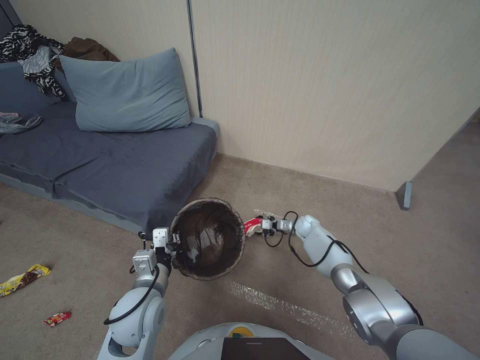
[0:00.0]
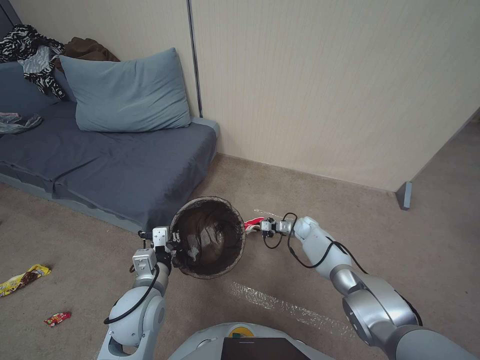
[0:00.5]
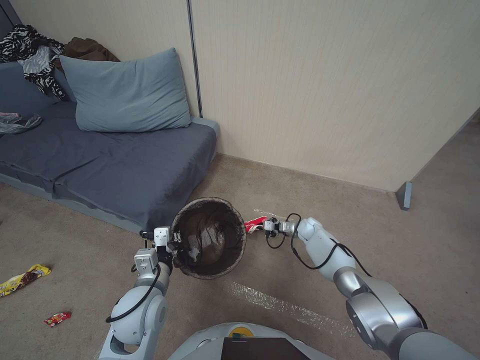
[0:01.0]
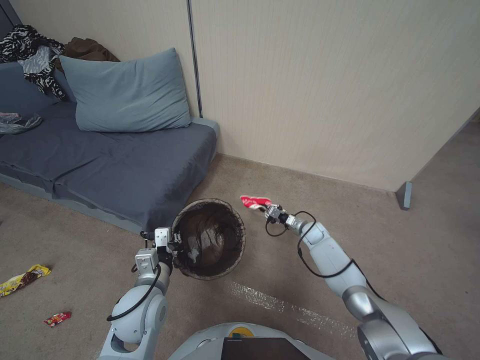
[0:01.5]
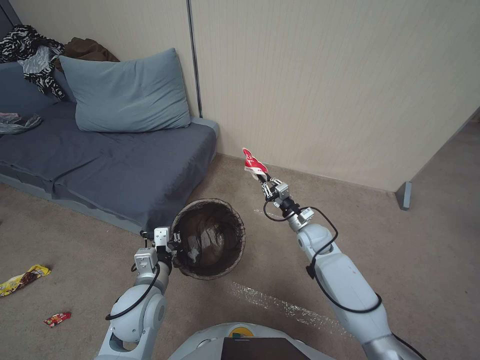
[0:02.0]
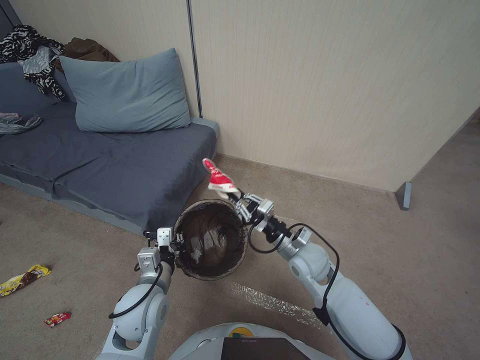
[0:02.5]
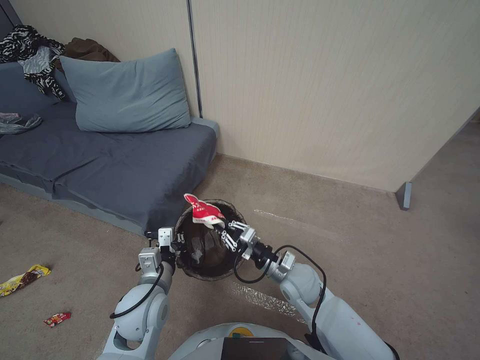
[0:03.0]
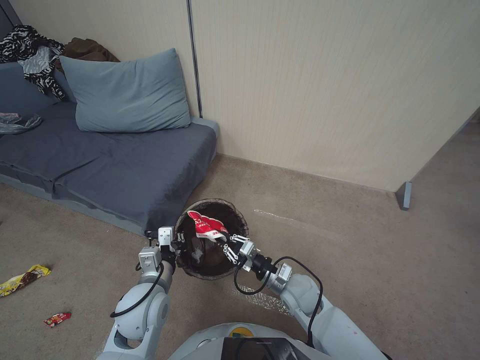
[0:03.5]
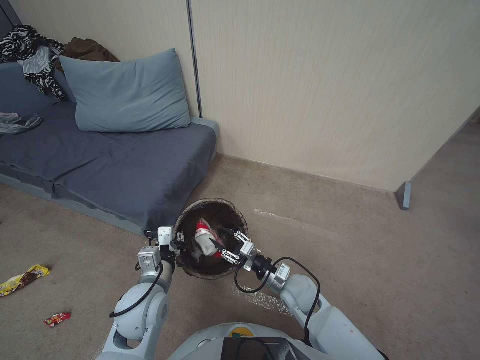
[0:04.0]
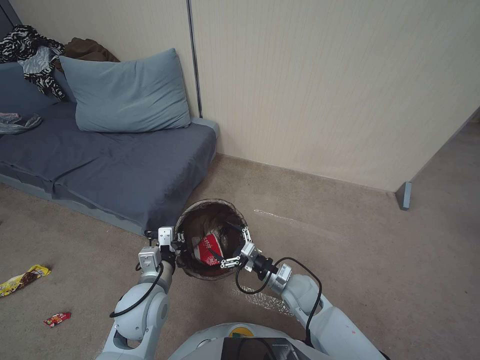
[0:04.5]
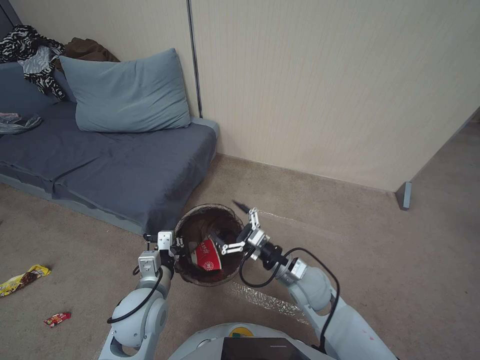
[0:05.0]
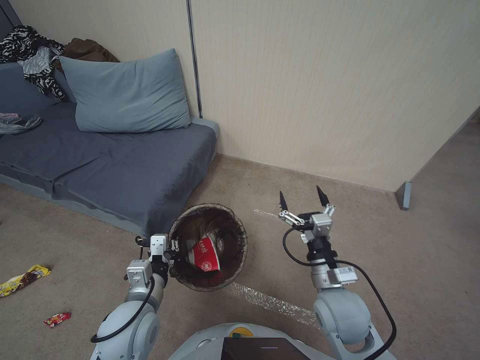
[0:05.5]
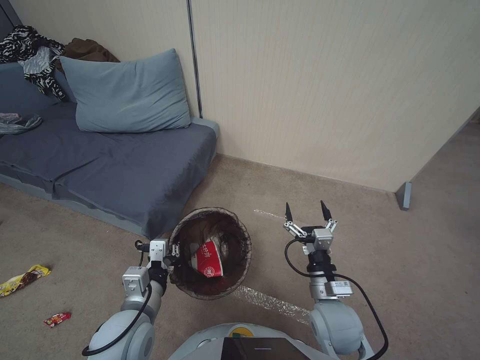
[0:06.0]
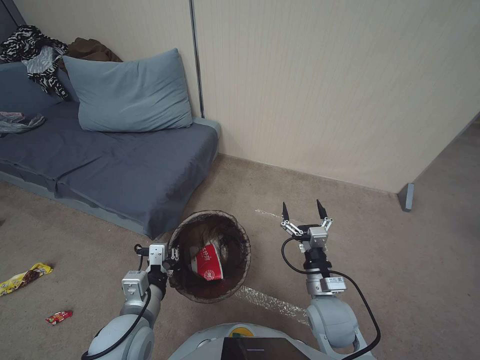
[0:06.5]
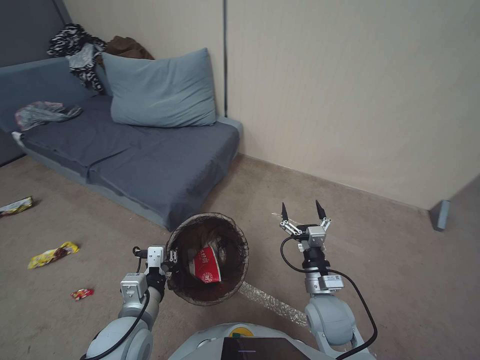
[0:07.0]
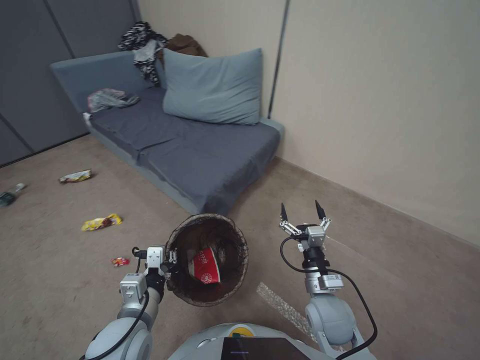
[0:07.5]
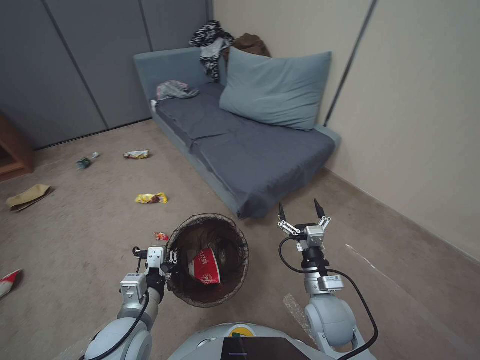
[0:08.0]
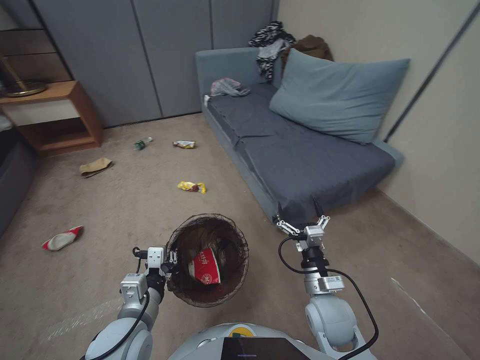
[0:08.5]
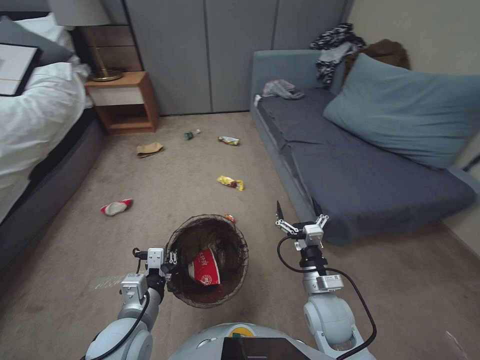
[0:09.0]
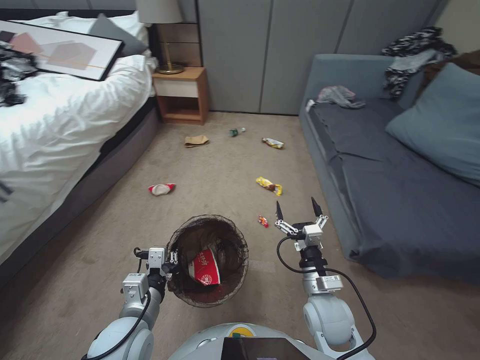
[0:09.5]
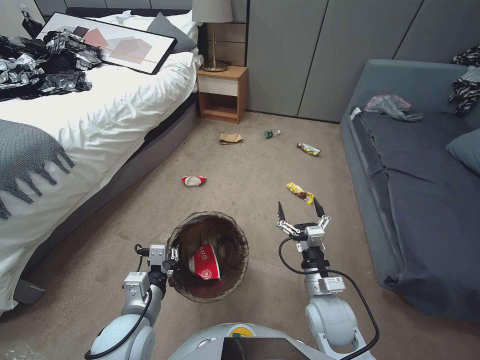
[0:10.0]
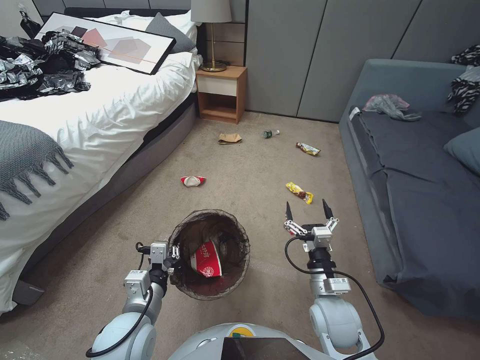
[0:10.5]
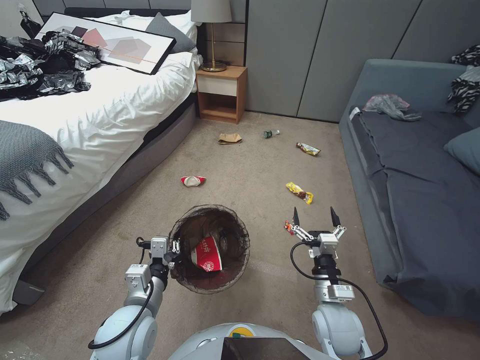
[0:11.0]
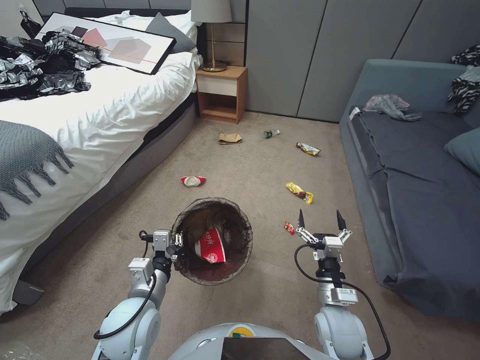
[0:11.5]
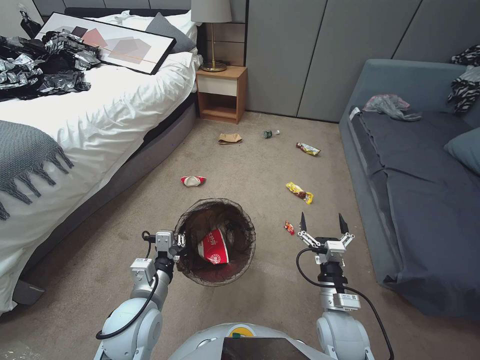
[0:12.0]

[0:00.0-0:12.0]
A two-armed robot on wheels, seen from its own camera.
Task of the whole recording: Pick up the trash bin, then pick up the garbage from the floor and place it into the trash bin.
0:00.0 to 0:02.0: The right gripper goes some 15 cm upward and backward, and closes its fingers.
0:02.0 to 0:04.0: The right gripper moves backward and to the left, roughly 20 cm.
0:04.0 to 0:06.0: The left gripper changes place by some 5 cm. The right gripper travels upward and backward by some 10 cm, and opens.
0:10.0 to 0:12.0: The right gripper changes place by some 5 cm.

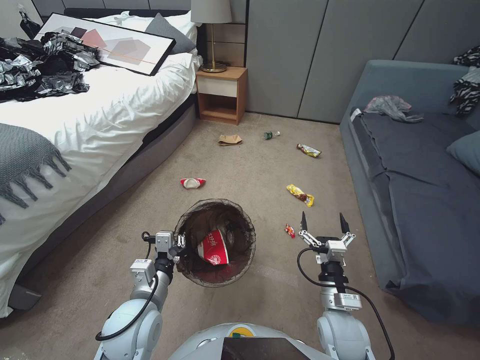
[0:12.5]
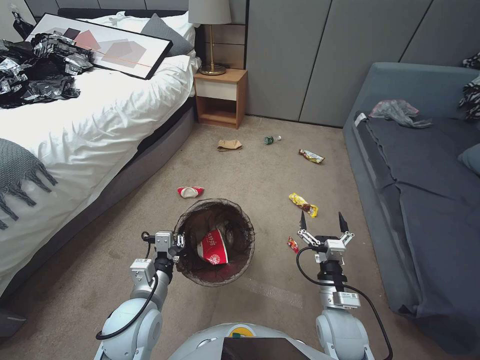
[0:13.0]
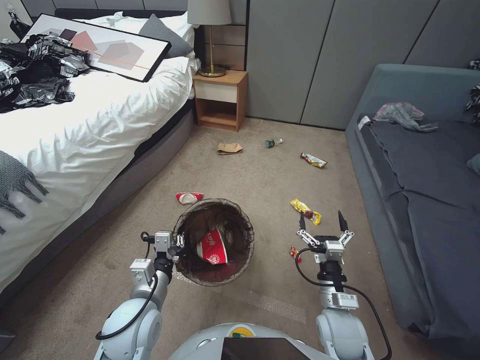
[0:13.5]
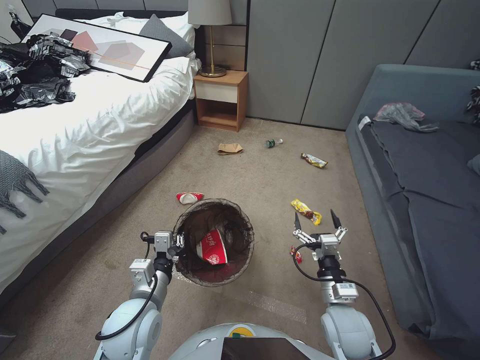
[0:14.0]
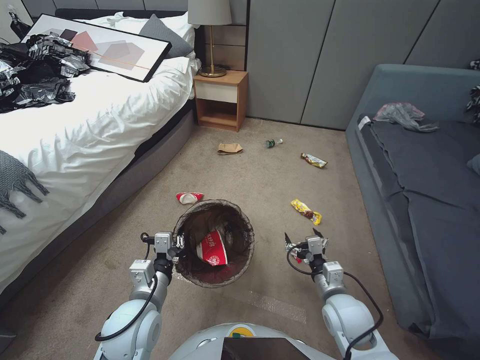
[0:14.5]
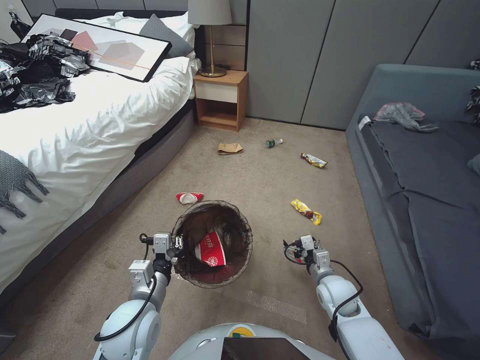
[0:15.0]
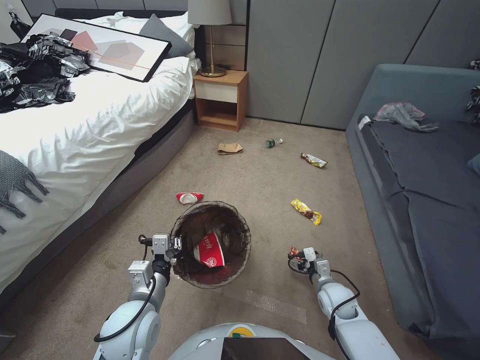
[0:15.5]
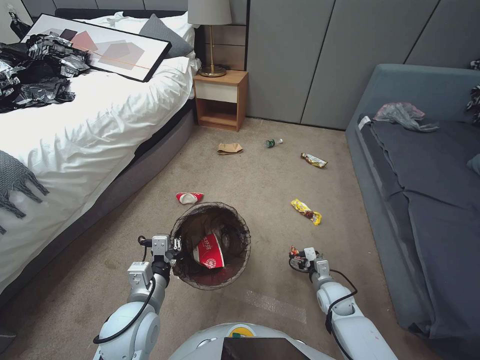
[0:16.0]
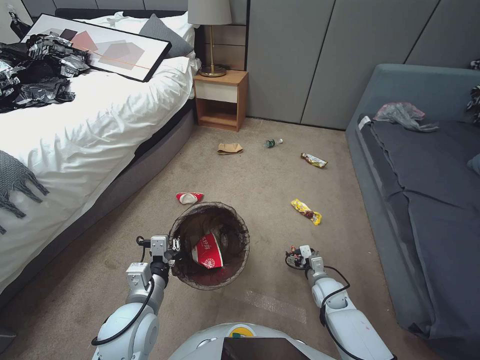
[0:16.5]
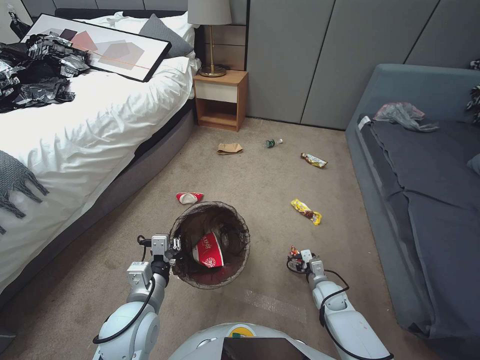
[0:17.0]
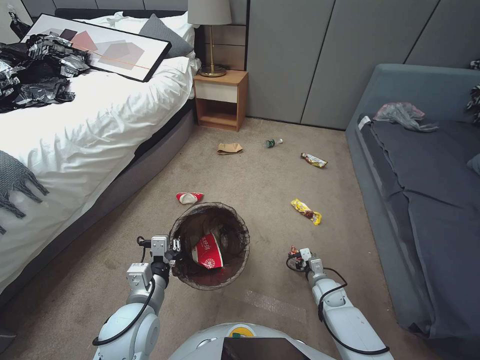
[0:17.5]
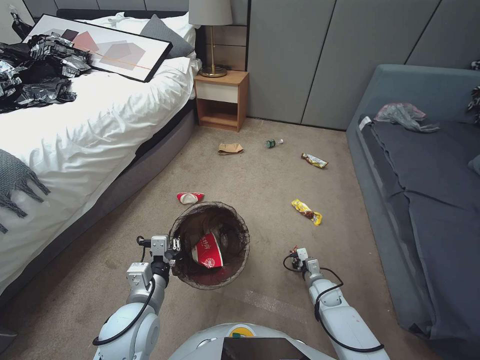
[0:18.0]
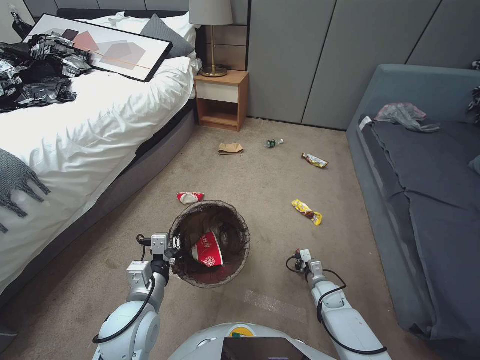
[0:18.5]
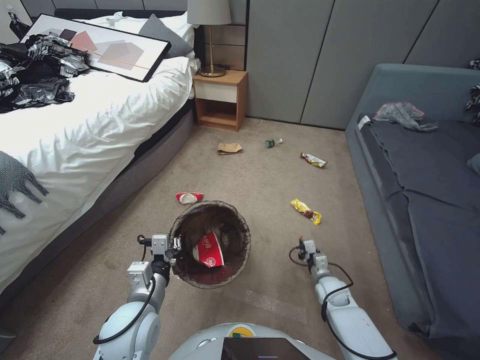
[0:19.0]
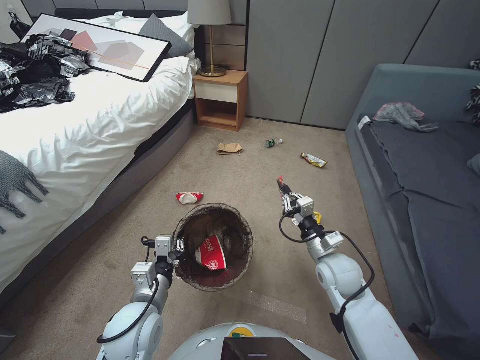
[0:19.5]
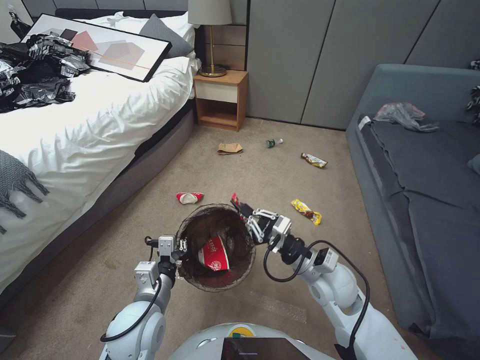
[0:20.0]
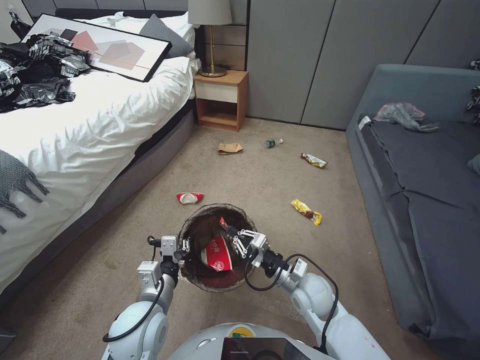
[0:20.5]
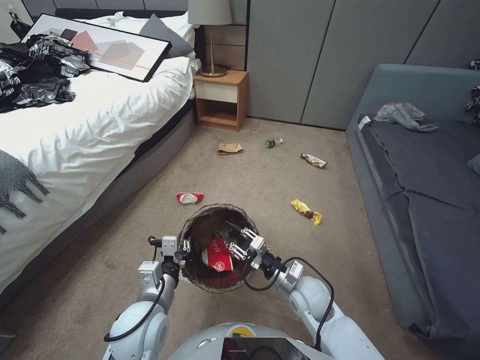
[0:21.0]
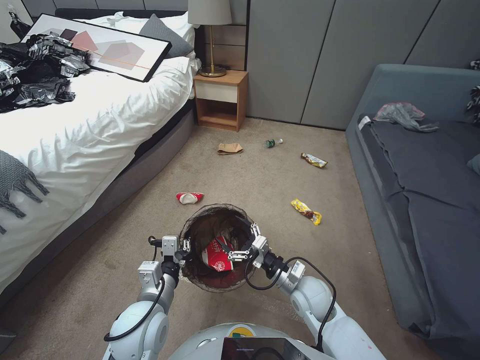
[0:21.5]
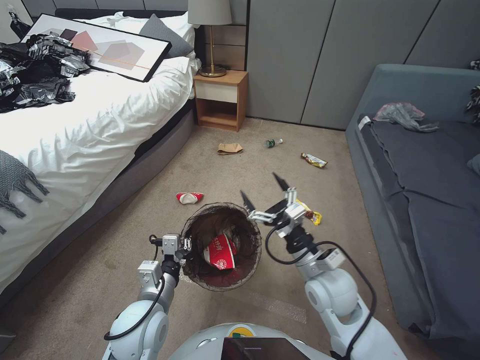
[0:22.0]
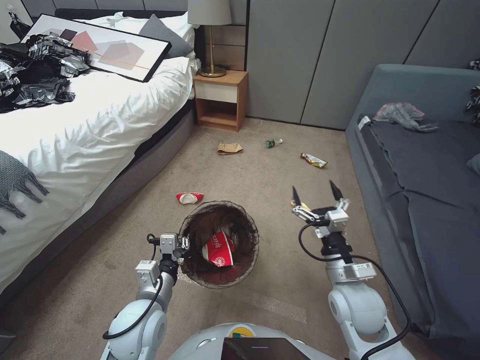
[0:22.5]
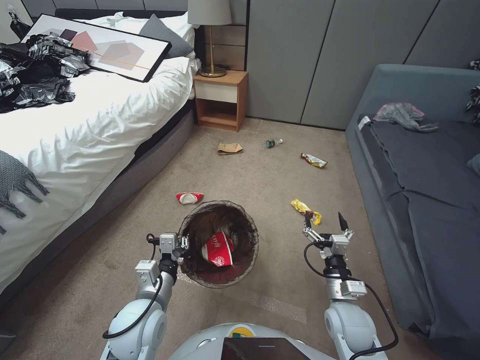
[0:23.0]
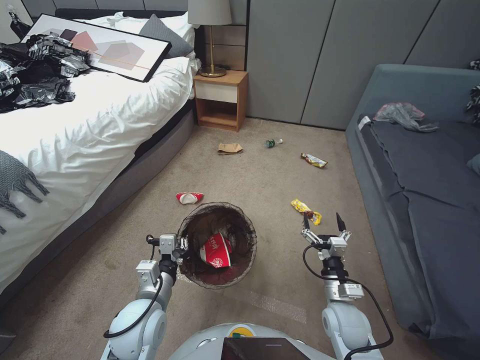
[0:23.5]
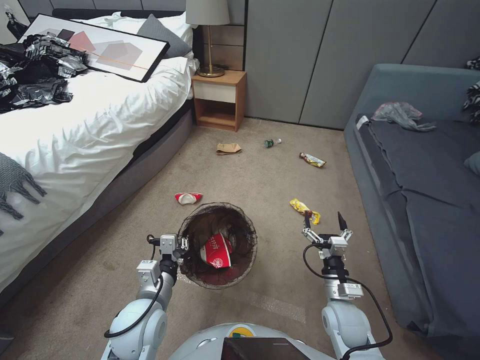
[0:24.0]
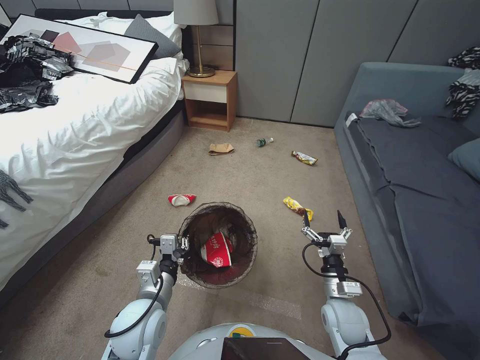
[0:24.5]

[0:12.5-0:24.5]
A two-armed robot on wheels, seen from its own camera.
Task of the whole recording: Pick up the trash bin, then pick up the garbage from the floor and place it into the trash bin.
0:14.5 to 0:16.5: The right gripper travels downward and forward by approximately 15 cm.
0:16.5 to 0:18.5: The right gripper heads downward, covering approximately 5 cm, and closes.
0:18.5 to 0:20.5: The right gripper moves upward and to the left, approximately 25 cm.
0:20.5 to 0:22.5: The right gripper moves upward and to the right, about 10 cm, and opens its fingers.
0:22.5 to 0:24.5: The right gripper goes some 10 cm downward.

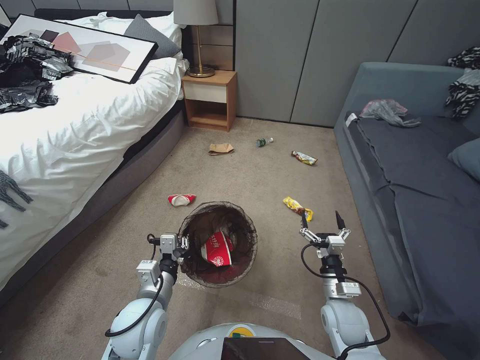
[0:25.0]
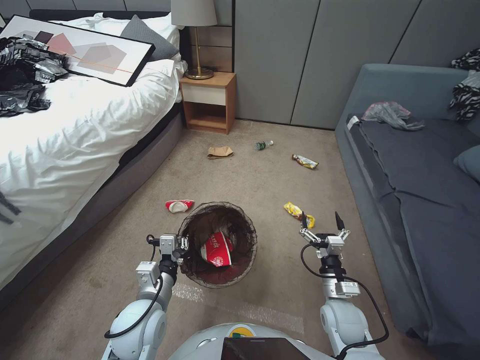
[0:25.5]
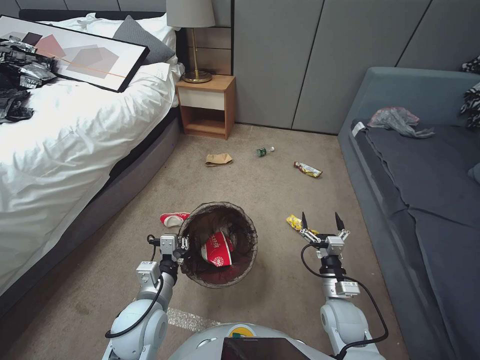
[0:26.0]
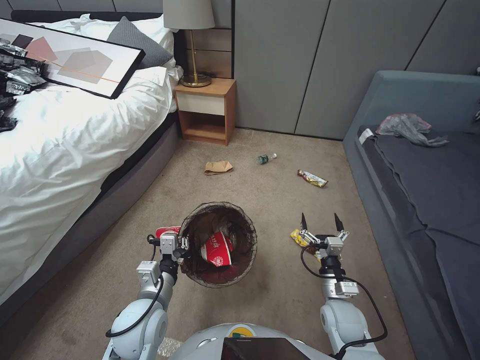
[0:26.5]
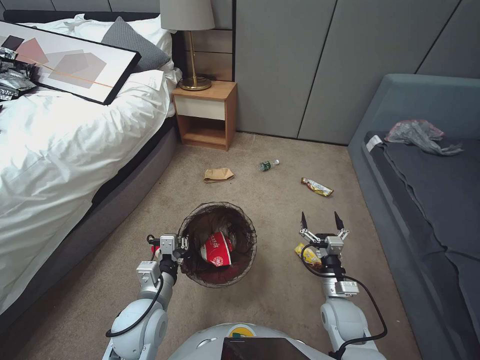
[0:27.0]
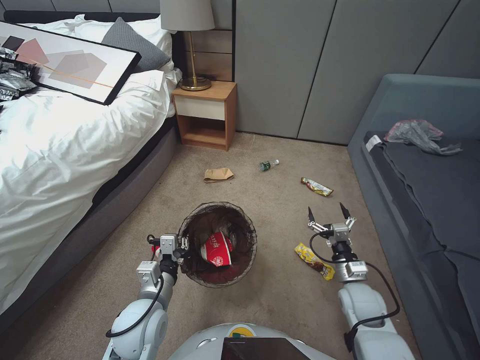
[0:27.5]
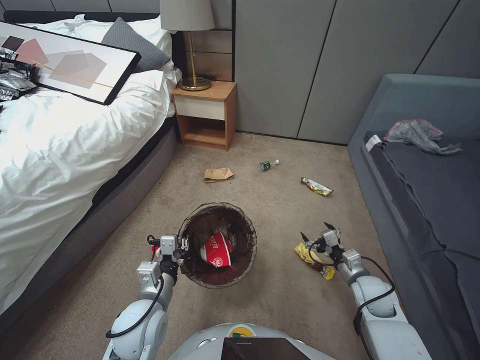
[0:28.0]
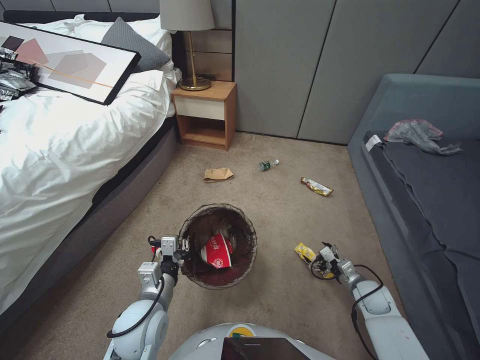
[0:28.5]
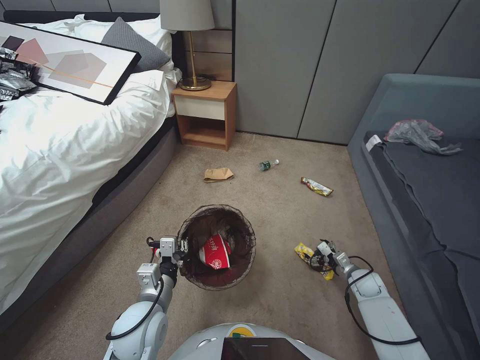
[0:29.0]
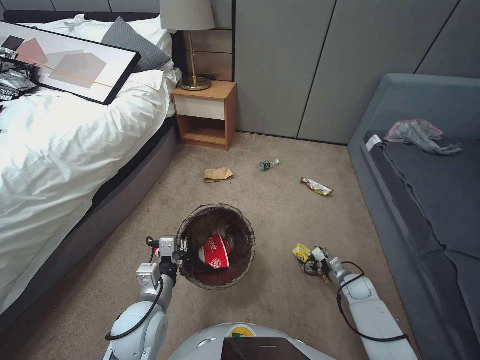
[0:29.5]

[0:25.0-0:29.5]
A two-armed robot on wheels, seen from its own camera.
Task of the whole recording: Pick up the trash bin, then pick up the garbage from the floor and place it into the trash bin.
0:27.0 to 0:29.5: The right gripper goes about 20 cm to the right, forward and downward.
